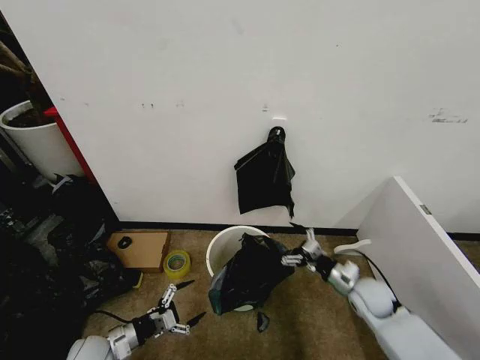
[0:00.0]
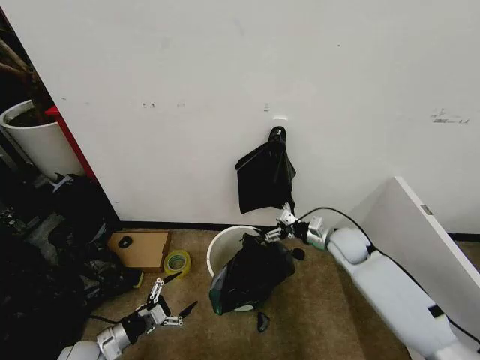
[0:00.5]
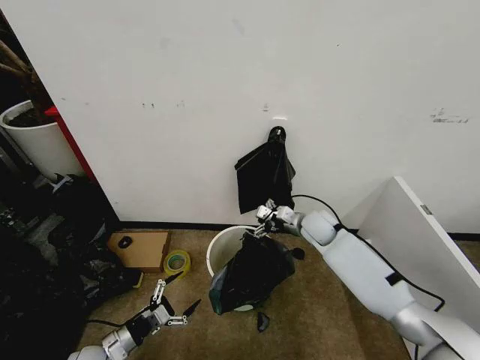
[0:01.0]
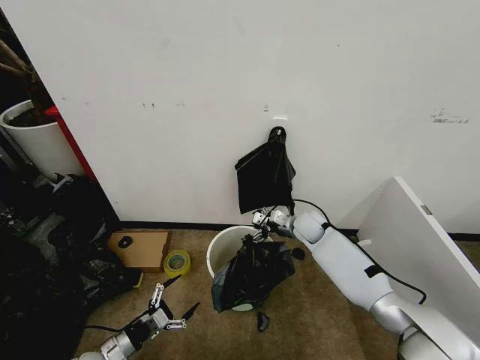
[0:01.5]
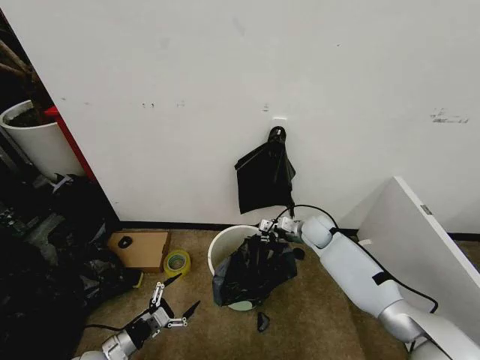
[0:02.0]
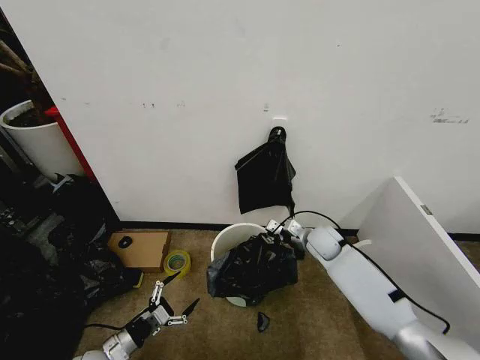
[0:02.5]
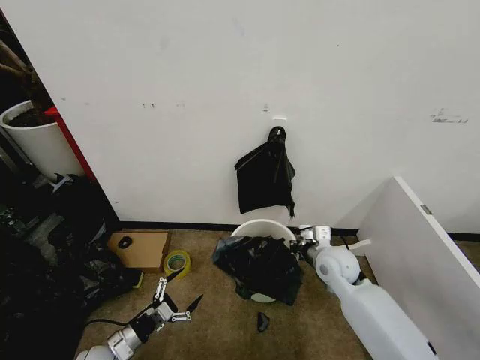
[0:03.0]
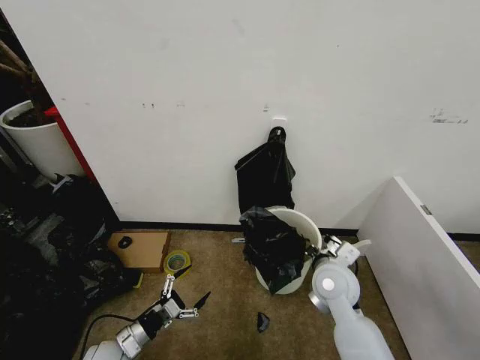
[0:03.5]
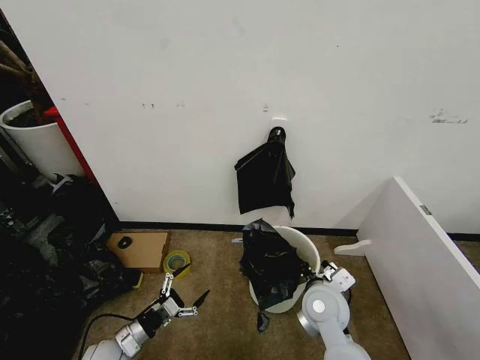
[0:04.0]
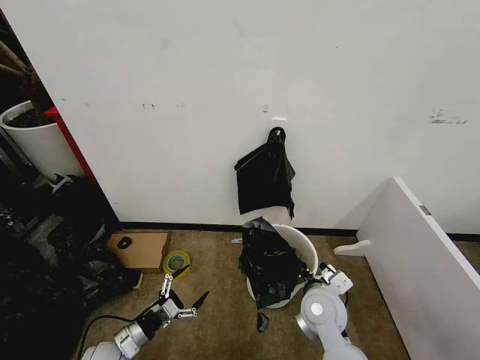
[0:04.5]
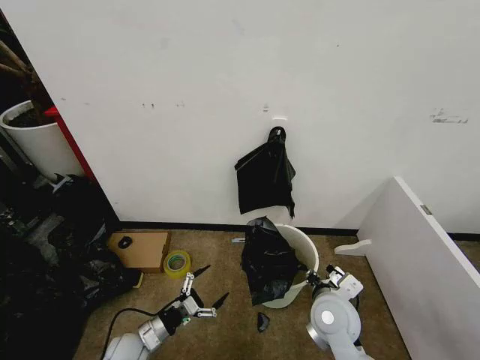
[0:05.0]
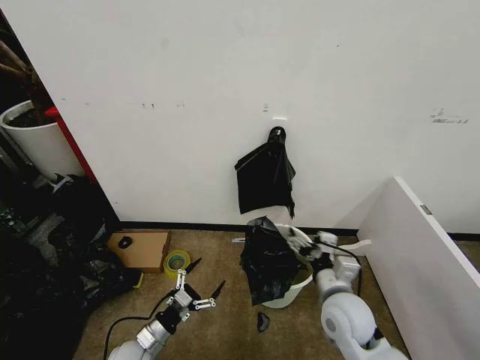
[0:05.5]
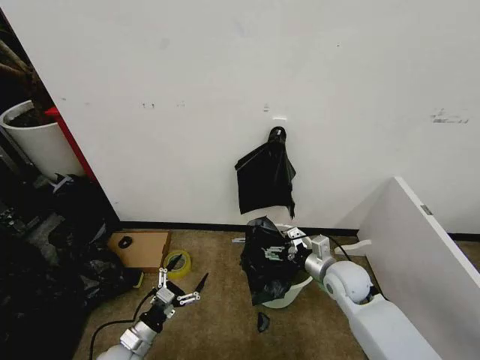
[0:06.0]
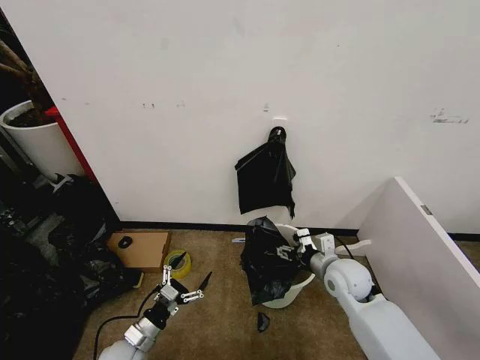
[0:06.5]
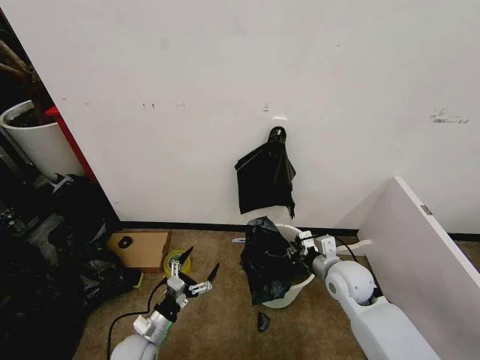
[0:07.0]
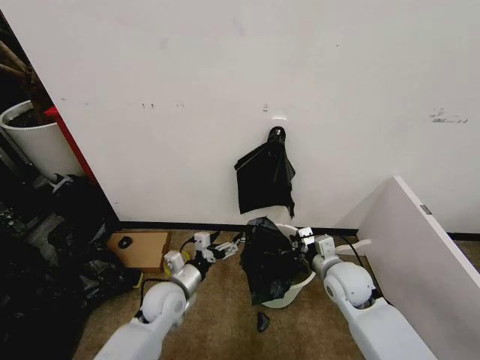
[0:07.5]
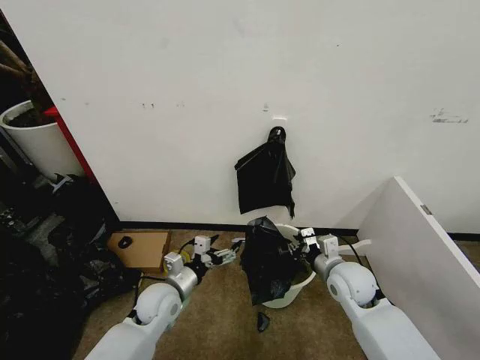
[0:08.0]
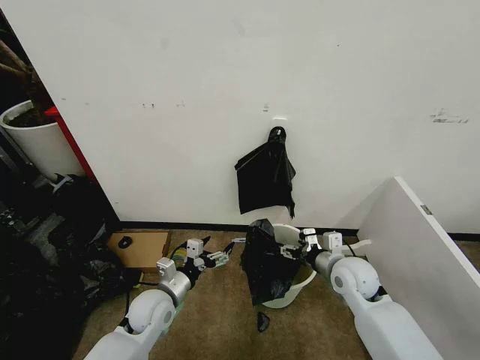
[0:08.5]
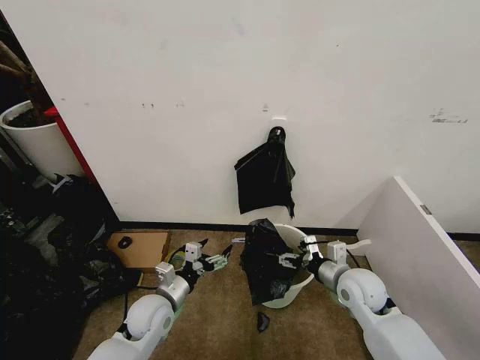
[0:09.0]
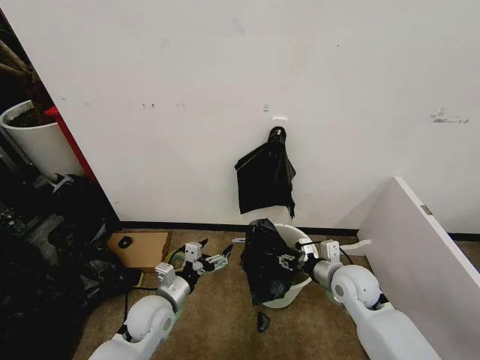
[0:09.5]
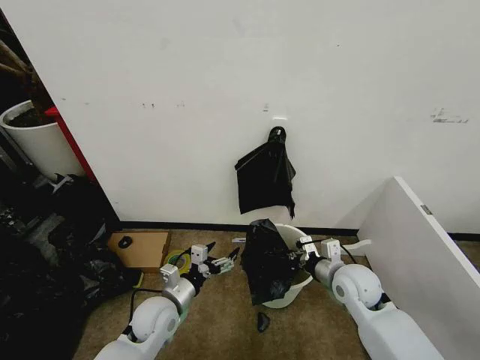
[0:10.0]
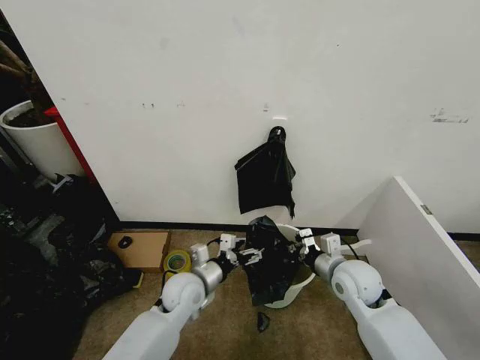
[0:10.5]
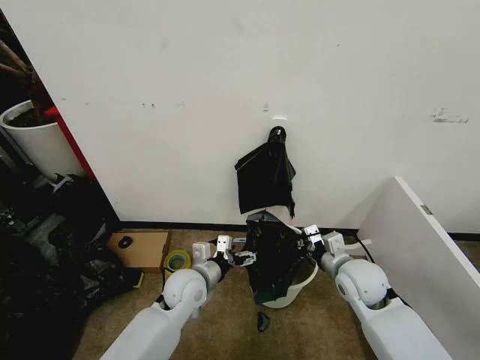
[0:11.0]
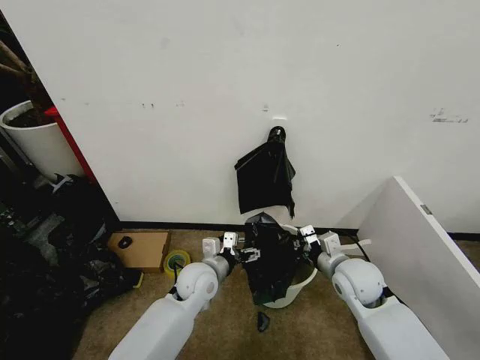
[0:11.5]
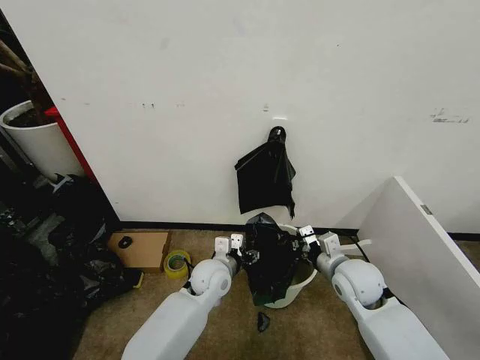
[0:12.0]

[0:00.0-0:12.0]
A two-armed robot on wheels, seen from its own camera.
Task of the whole recording: Place the garbage bag over the trash bin.
0:00.0 to 0:02.0: The right gripper heads forward and to the left, covering some 20 cm, and closes up.
0:02.0 to 0:04.0: The right gripper moves backward, some 25 cm, and closes up.
0:04.0 to 0:06.0: The right gripper is displaced to the right and forward by approximately 10 cm, and opens its fingers.
0:06.0 to 0:08.0: The left gripper moves forward, upward and to the right, some 20 cm. Meanwhile the right gripper closes.
0:08.0 to 0:10.0: The right gripper opens, then closes again.
0:10.0 to 0:12.0: The left gripper heads to the right and forward, covering roughly 15 cm.

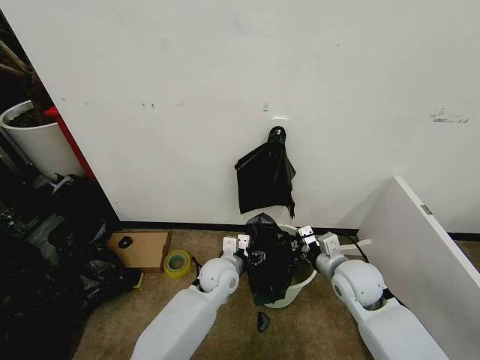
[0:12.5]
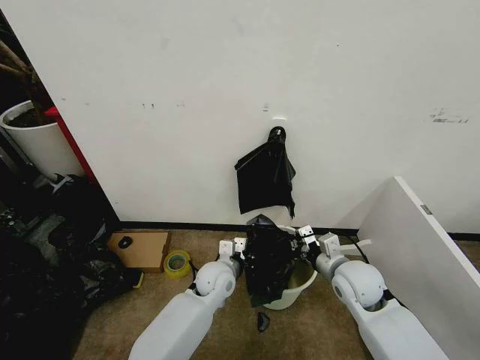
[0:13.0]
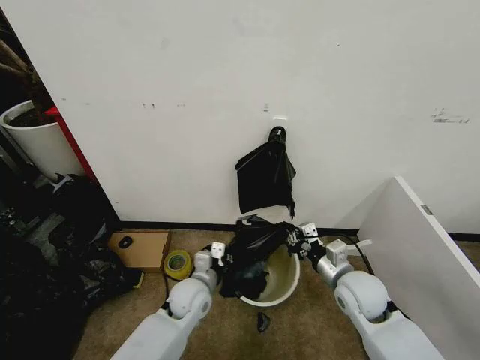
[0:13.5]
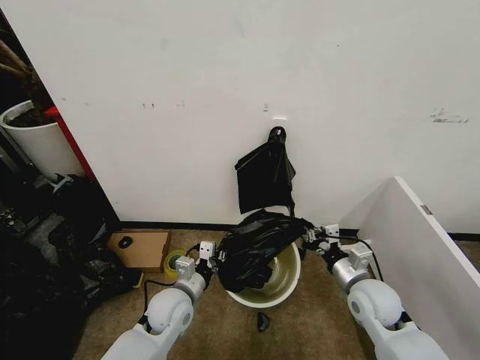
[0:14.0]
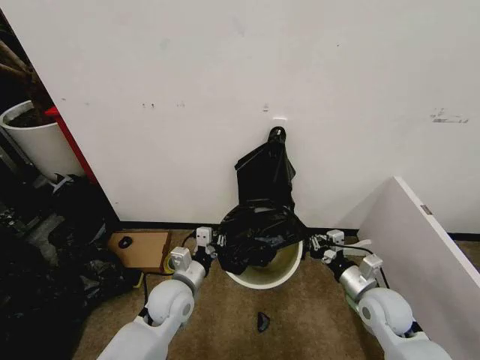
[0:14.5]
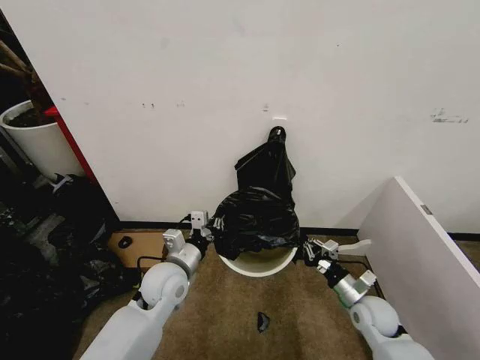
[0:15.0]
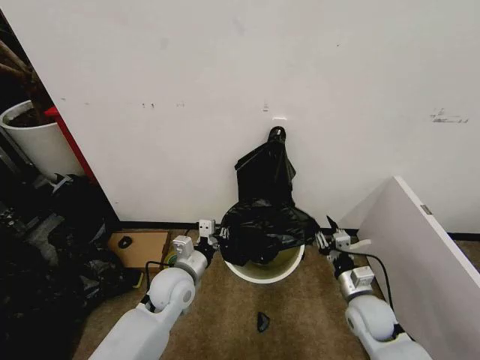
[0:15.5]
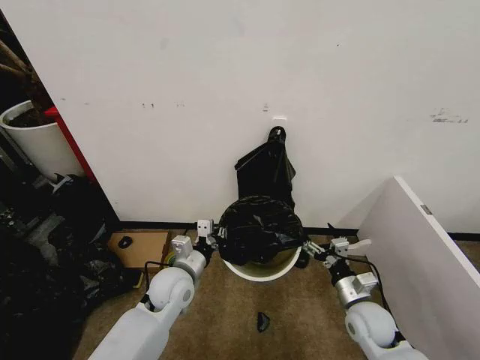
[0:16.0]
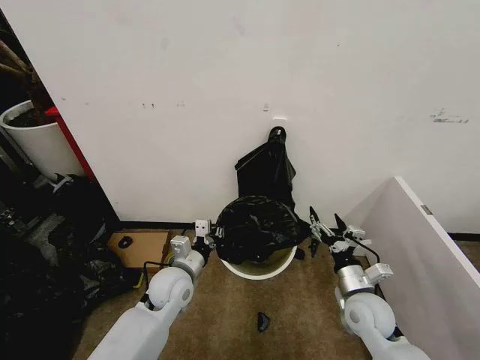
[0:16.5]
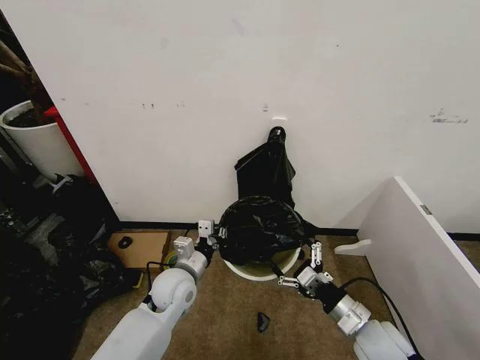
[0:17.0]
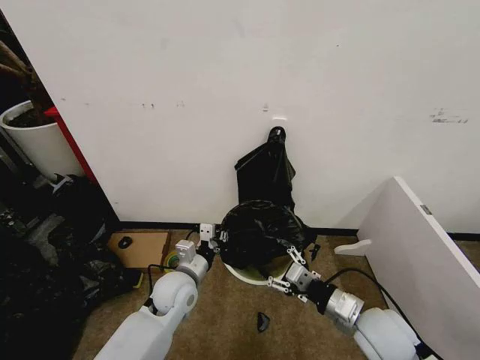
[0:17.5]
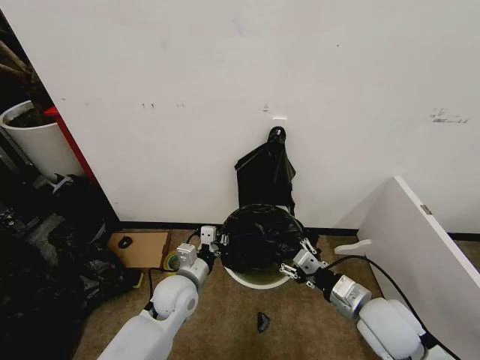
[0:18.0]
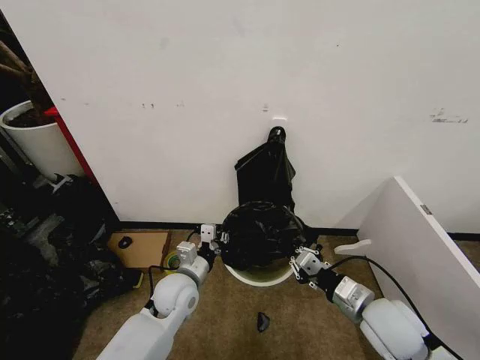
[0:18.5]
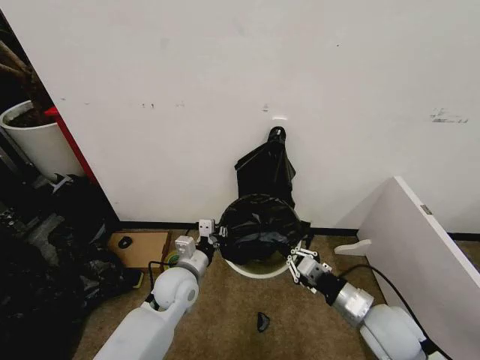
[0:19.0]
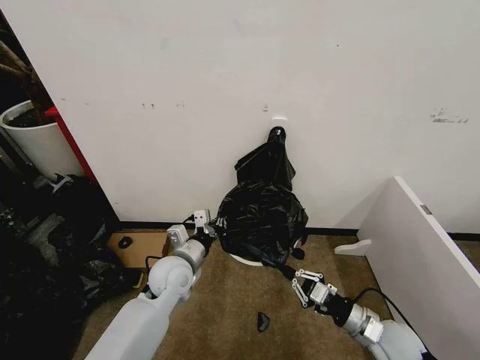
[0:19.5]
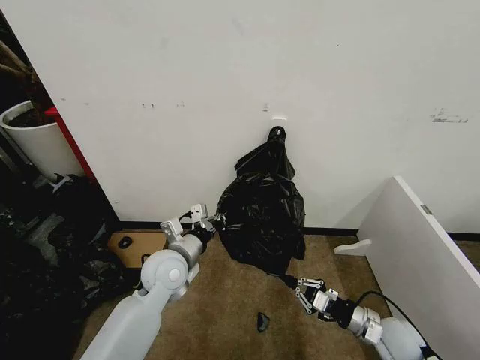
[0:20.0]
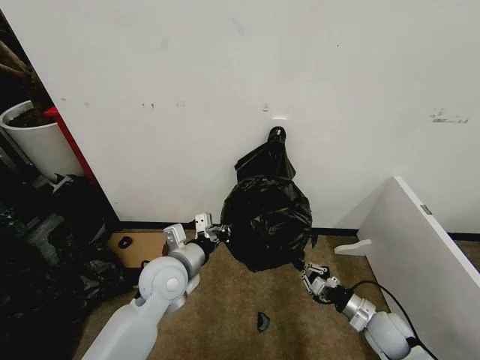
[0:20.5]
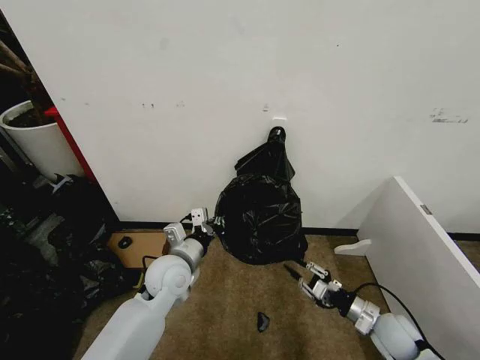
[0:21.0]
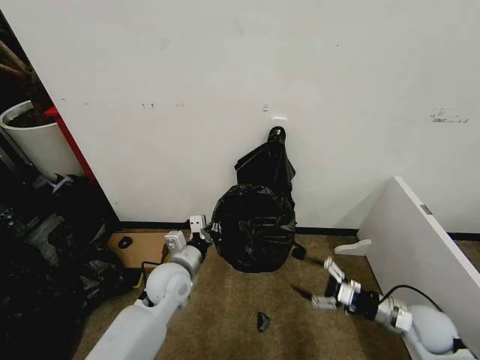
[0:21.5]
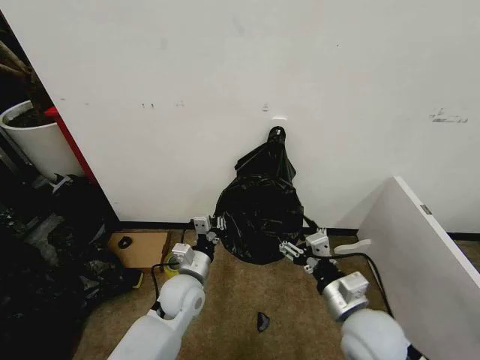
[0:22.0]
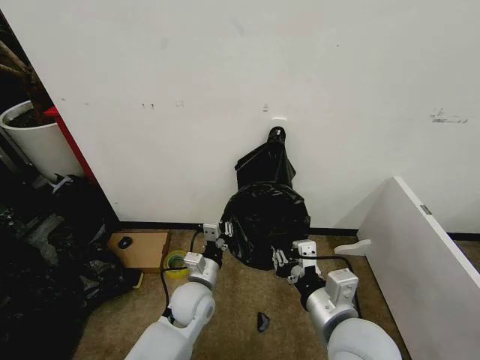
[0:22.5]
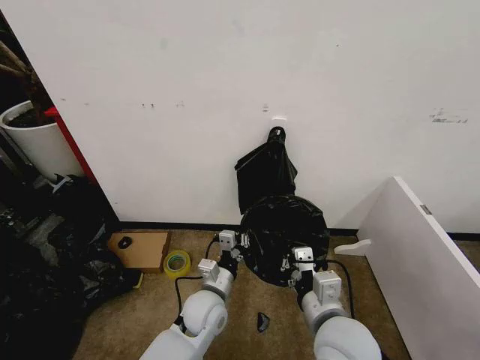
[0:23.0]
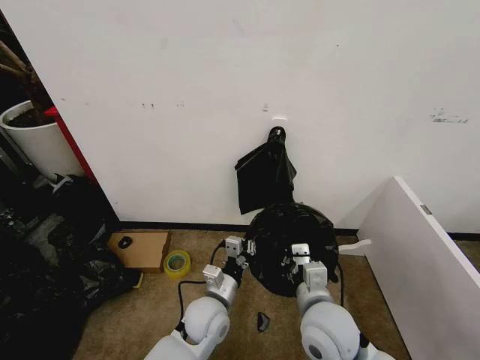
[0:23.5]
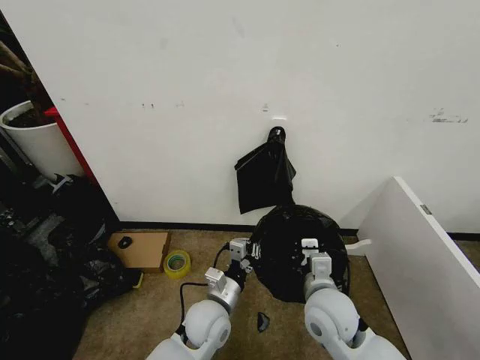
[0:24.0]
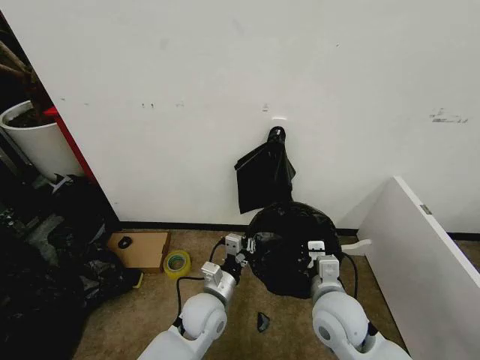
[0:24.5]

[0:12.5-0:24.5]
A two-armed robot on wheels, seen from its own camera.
Task of the whole recording: Place the garbage bag over the trash bin.
0:12.5 to 0:14.5: The right gripper shifts approximately 10 cm to the right and downward, while the left gripper heads to the left and backward, covering some 10 cm, and closes its fingers.
0:14.5 to 0:16.5: The right gripper opens its fingers.
0:16.5 to 0:18.5: The right gripper moves upward, roughly 5 cm, and closes its fingers.
0:18.5 to 0:20.5: The right gripper goes approximately 15 cm downward and to the right, while the left gripper moves upward, about 10 cm.
0:20.5 to 0:22.5: The left gripper moves downward, approximately 10 cm, while the right gripper goes roughly 30 cm upward and to the left, and opens and closes again.
0:22.5 to 0:24.5: The right gripper moves downward and forward, about 10 cm.

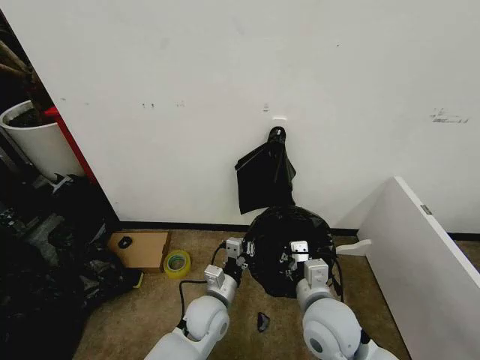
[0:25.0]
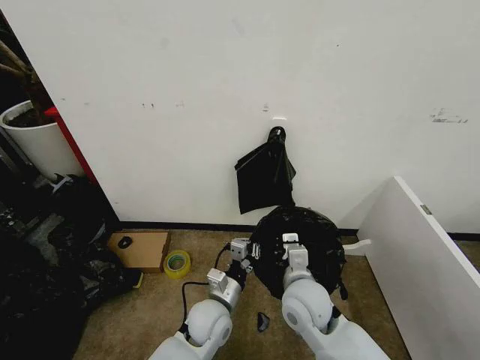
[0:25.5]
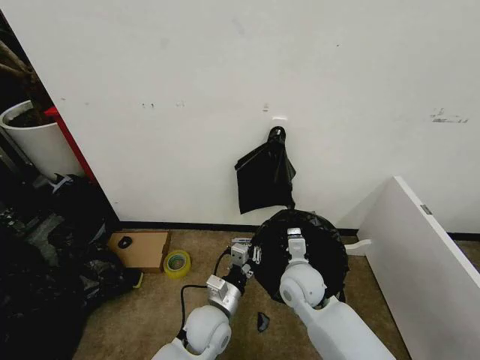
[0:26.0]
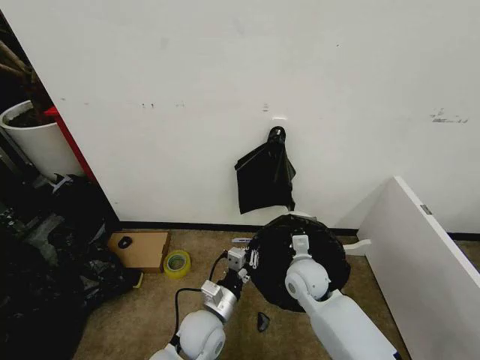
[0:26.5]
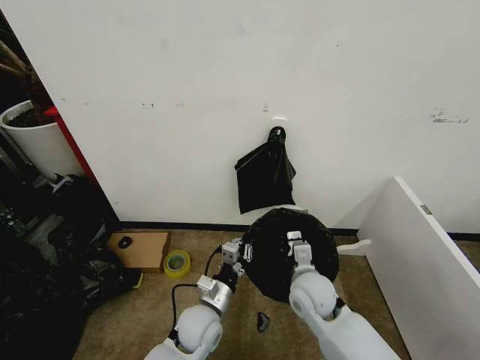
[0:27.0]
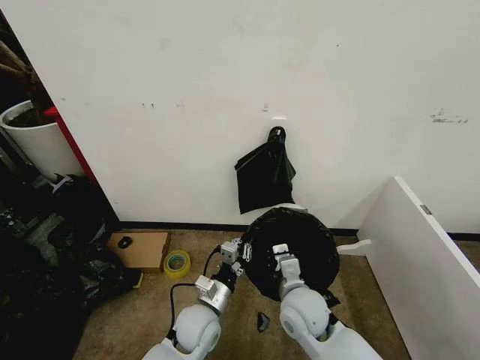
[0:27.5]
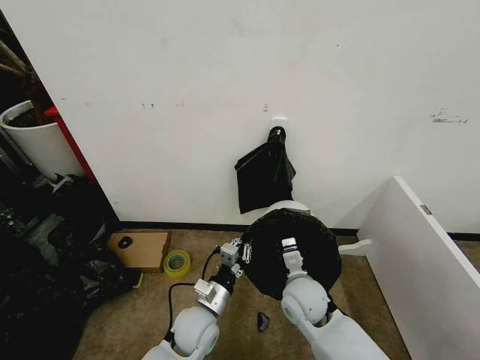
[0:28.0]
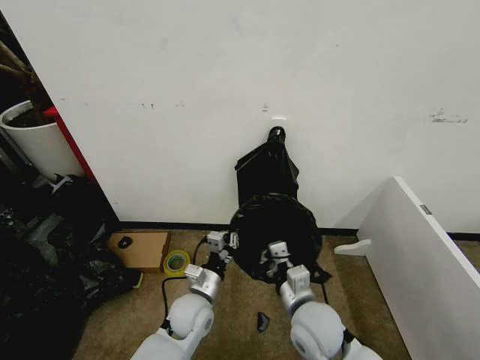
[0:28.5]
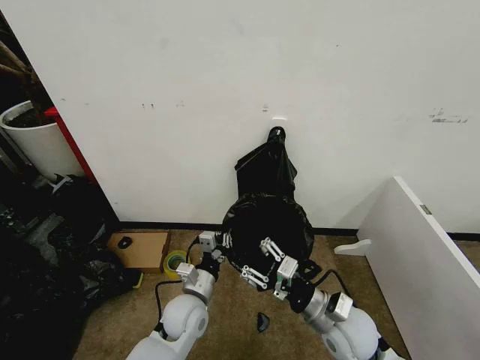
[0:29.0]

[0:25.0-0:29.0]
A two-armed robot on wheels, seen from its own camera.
Task of the whole recording: Place the garbage bag over the trash bin.
0:25.0 to 0:27.0: The right gripper heads forward and downward, covering roughly 10 cm.
0:27.0 to 0:29.0: The right gripper goes roughly 10 cm backward and to the right, and opens.
